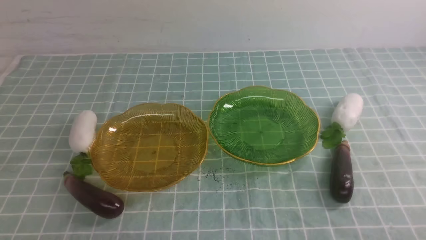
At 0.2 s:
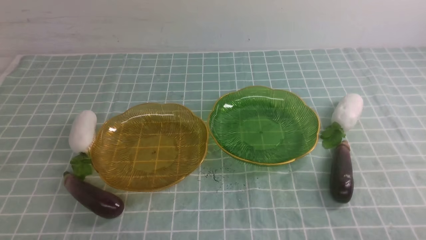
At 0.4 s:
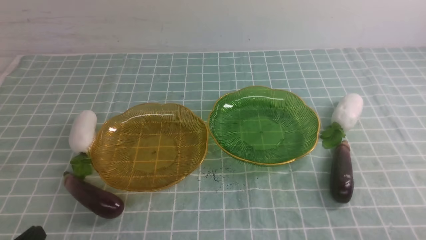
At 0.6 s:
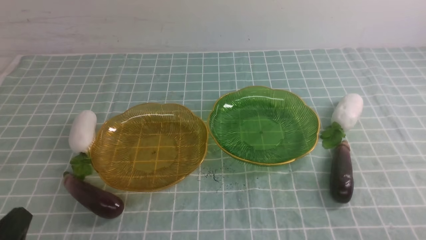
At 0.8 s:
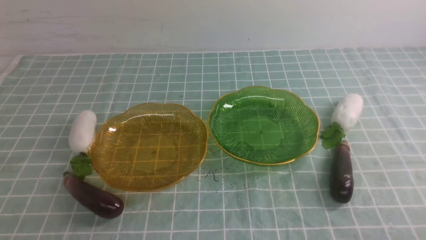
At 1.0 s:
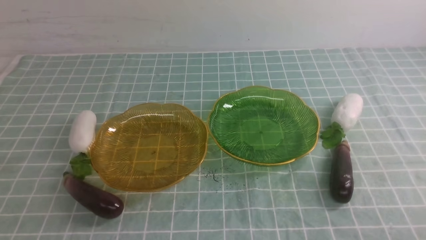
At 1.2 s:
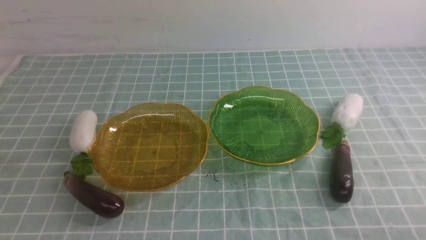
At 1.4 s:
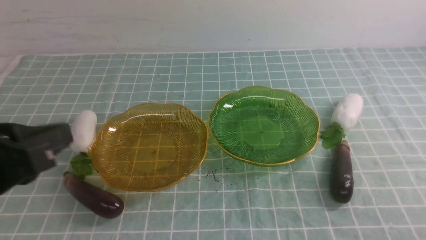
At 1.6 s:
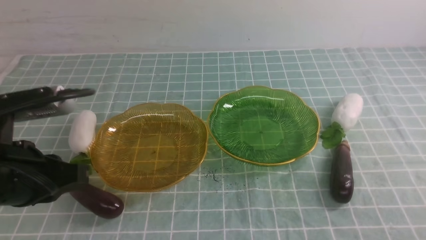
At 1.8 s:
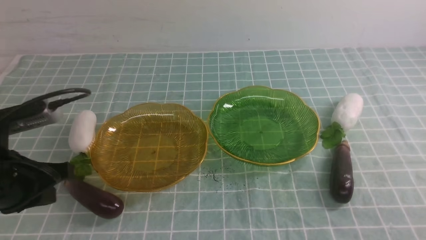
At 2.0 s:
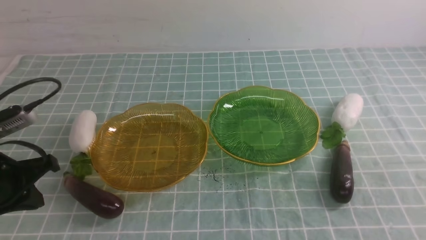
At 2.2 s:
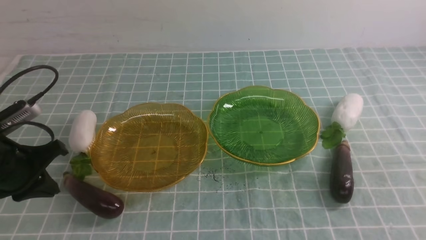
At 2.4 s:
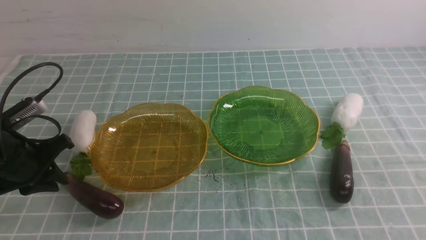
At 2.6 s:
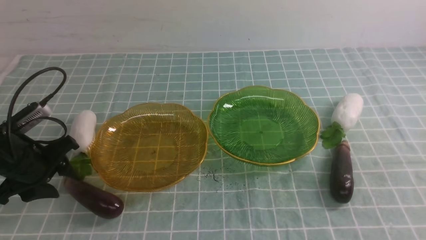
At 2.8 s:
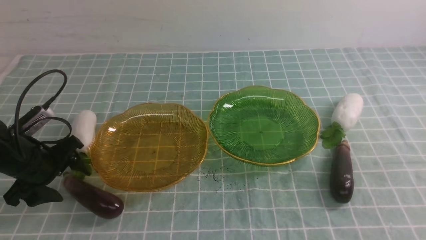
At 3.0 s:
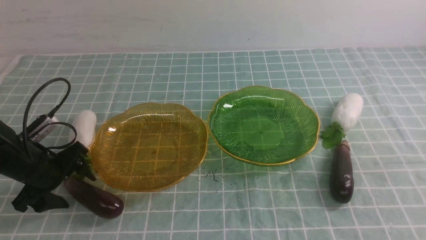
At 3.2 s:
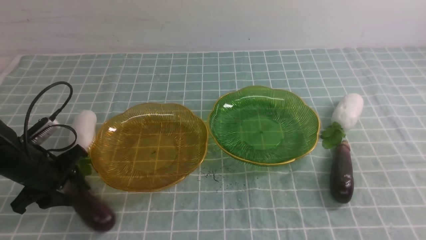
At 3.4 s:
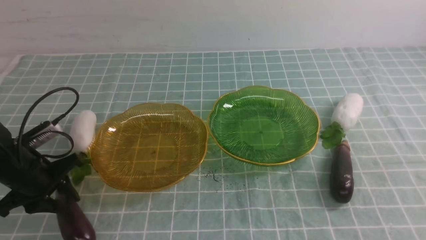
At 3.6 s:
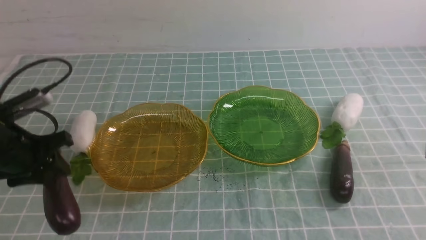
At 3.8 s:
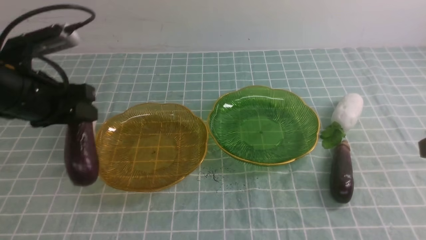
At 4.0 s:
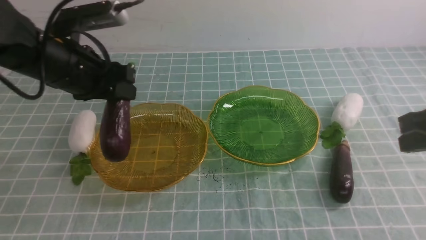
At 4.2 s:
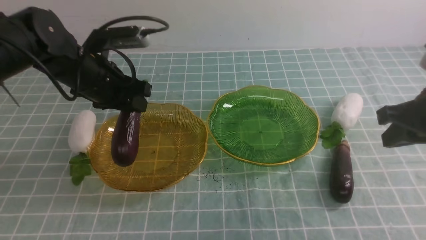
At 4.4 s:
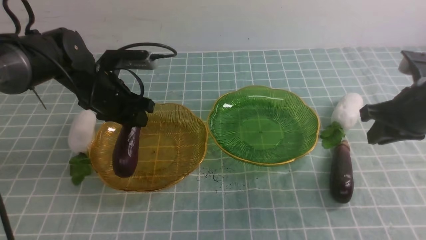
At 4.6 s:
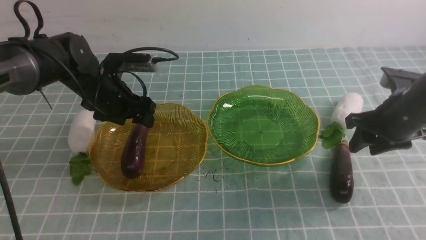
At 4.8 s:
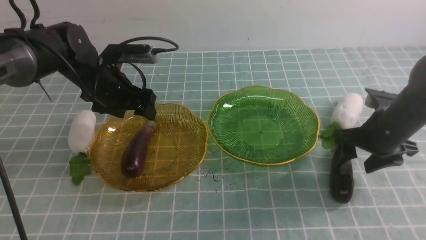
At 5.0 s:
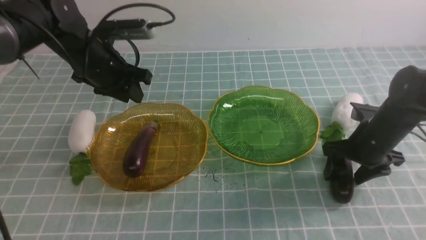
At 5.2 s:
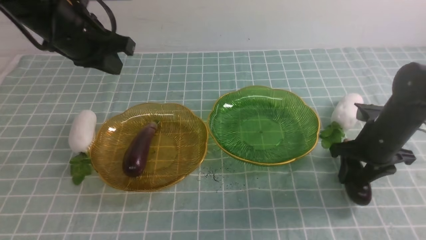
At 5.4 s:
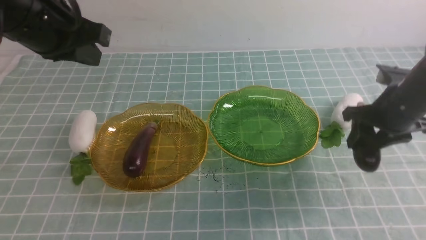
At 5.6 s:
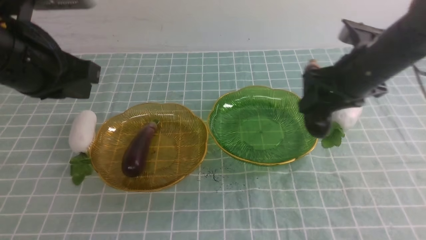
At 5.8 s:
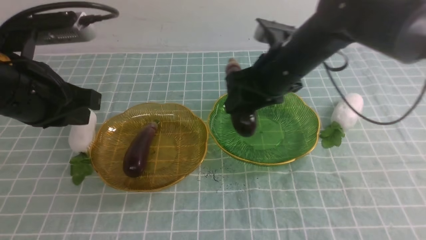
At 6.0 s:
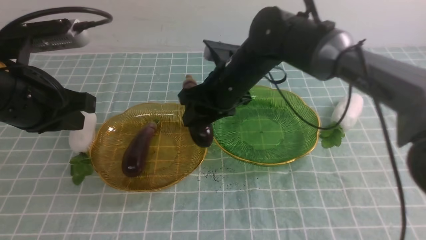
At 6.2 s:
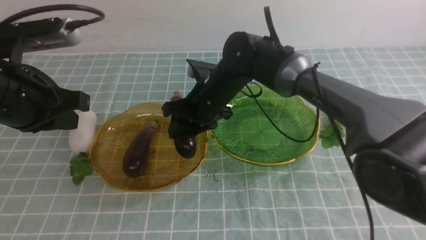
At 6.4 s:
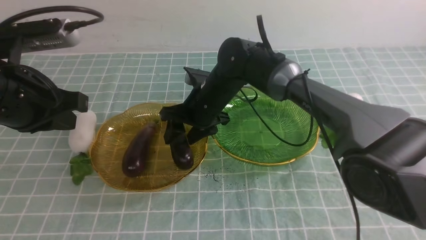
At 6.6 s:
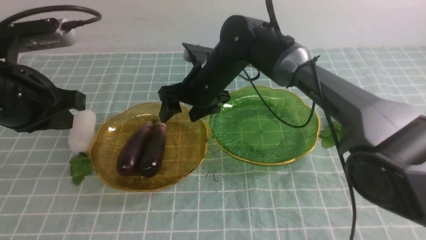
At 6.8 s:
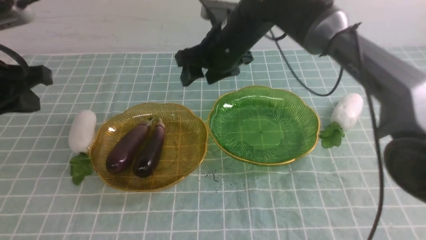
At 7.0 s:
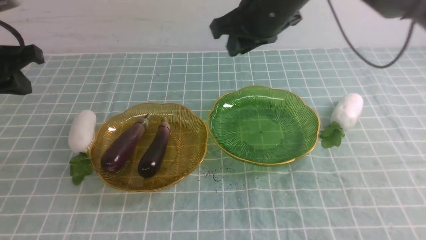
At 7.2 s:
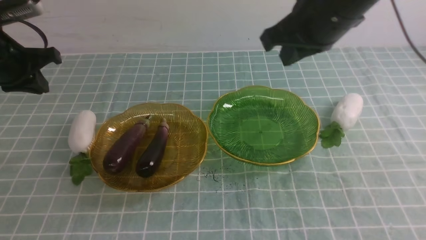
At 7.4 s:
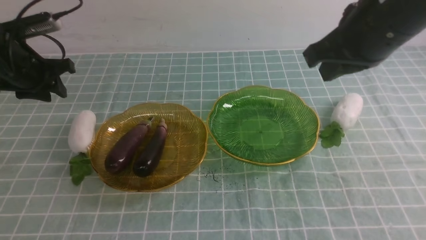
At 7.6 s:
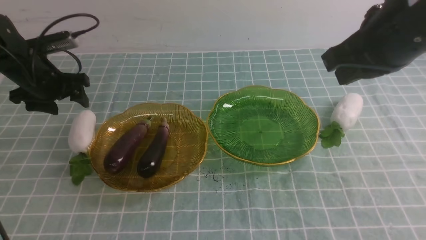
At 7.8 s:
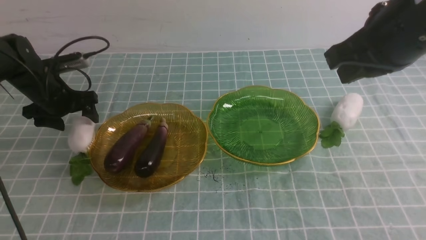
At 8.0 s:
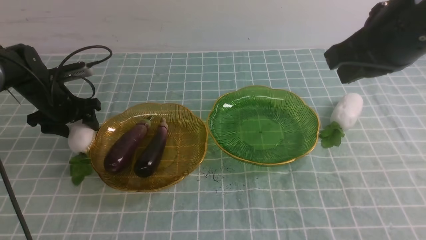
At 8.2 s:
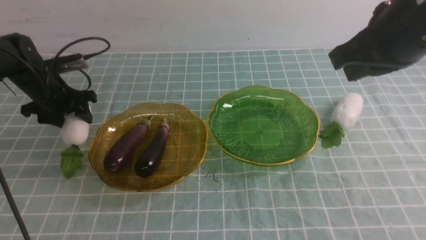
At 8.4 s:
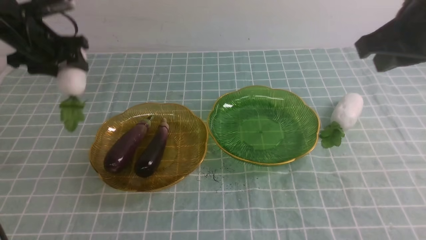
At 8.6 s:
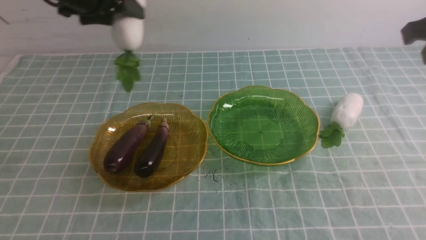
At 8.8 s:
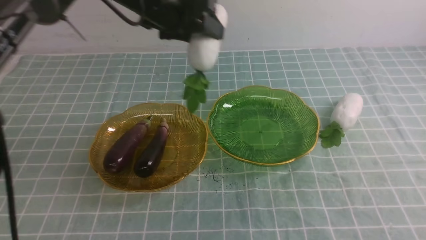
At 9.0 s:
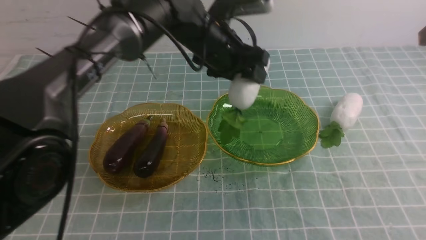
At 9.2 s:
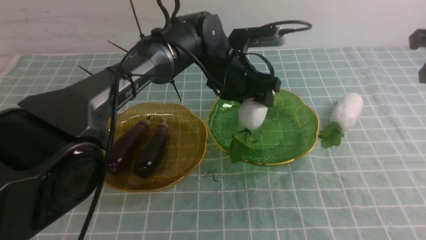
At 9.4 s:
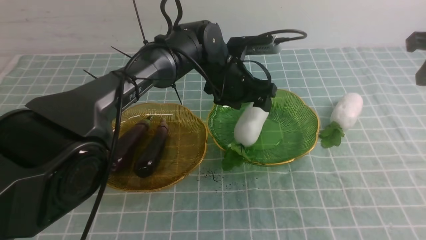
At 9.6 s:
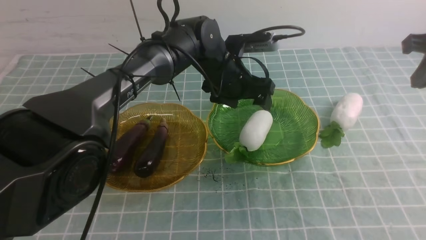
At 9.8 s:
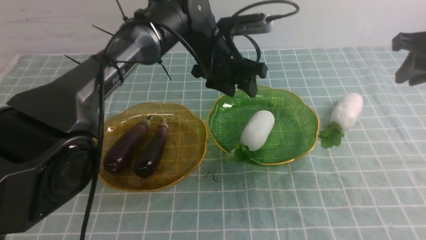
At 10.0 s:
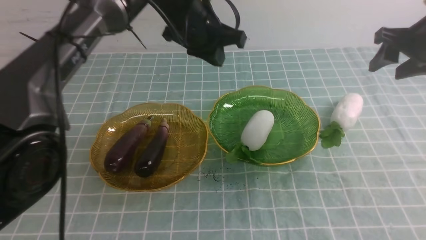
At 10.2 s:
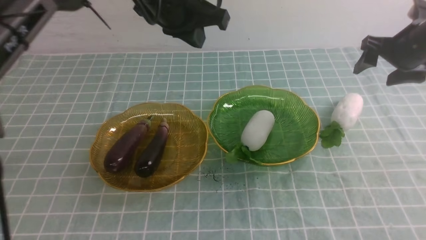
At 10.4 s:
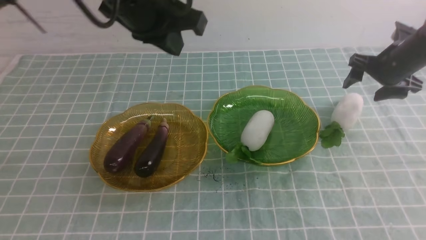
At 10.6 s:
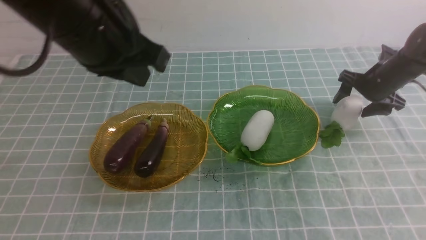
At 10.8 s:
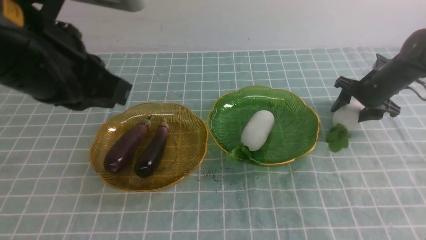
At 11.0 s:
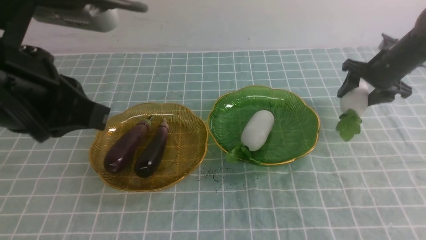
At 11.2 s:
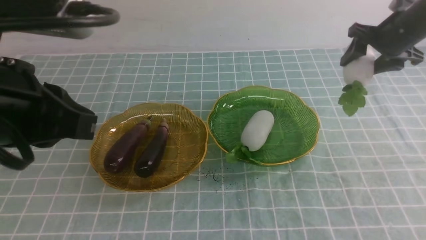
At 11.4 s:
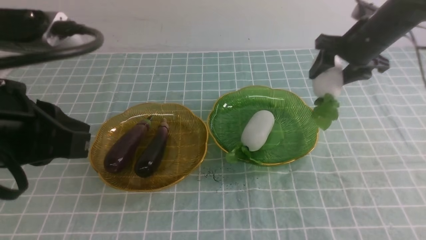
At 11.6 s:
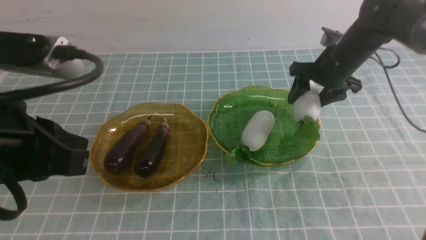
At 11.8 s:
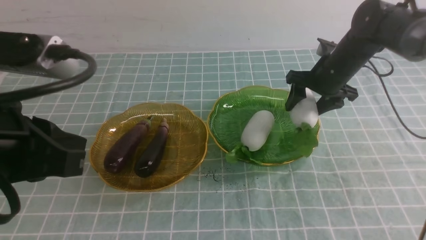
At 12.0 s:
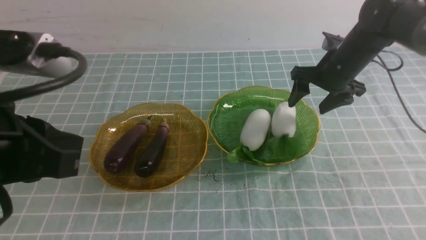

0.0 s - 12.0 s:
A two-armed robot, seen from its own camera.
Step, 0.0 s - 4.6 s: use the left arm to grab an eggplant and put it into the left plate.
Step, 4.8 s - 6.4 s: use the right arm to grab an eggplant and put it into the left plate.
Step, 6.6 s - 9.4 s: use the left arm to grab a radish and put it into the right plate.
Step, 9.6 s - 12.0 s: use the right arm to grab a radish and put it into the right plate.
0.0 s - 1.6 s: The left gripper goes about 20 cm upward and forward.
1.6 s - 3.0 s: The left gripper heads downward, forward and to the left, covering about 20 cm, and opens.
3.0 s - 4.4 s: The left gripper heads to the right, forward and upward, covering some 15 cm, while the right gripper shifts some 20 cm forward.
4.4 s - 6.0 s: The left gripper moves backward and upward, some 20 cm, and closes its fingers. The right gripper goes about 25 cm to the left.
6.0 s - 7.6 s: The right gripper is displaced to the right, upward and backward by about 25 cm, and closes. Meanwhile the left gripper is displaced forward, downward and to the left by approximately 25 cm, and opens its fingers.
7.6 s - 9.0 s: The left gripper is displaced to the right by approximately 30 cm. The right gripper is displaced to the right by roughly 15 cm.
9.0 s - 10.4 s: The right gripper moves downward and forward, roughly 20 cm, and opens up. Meanwhile the left gripper goes roughly 20 cm upward, backward and to the left, and closes its fingers.
10.4 s - 12.0 s: The right gripper travels to the left and upward by some 10 cm. The left gripper moves backward and to the left, about 20 cm.

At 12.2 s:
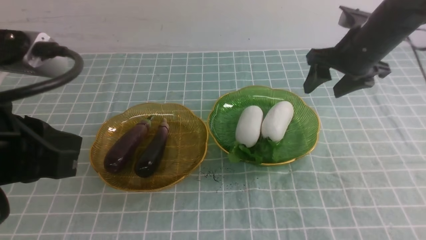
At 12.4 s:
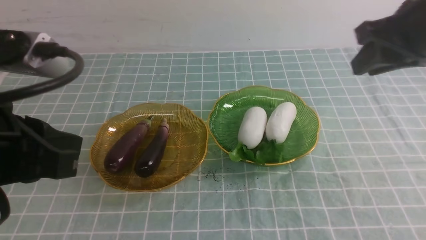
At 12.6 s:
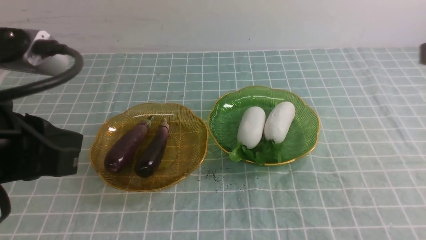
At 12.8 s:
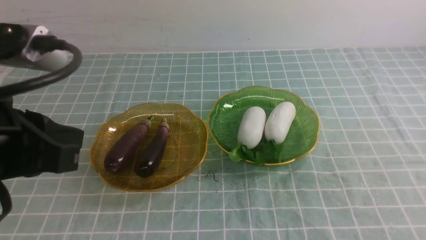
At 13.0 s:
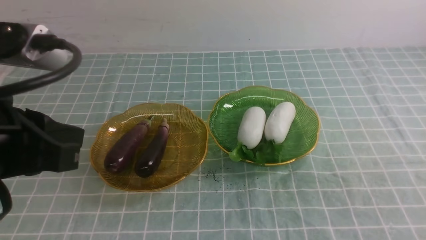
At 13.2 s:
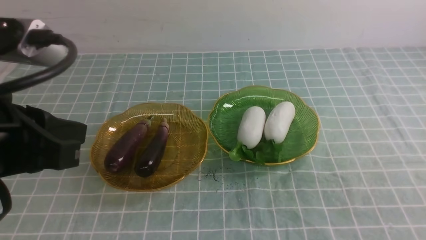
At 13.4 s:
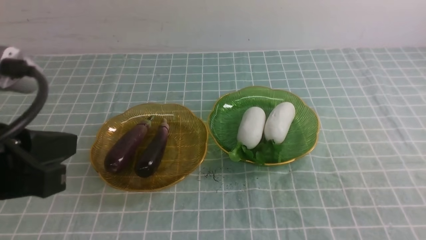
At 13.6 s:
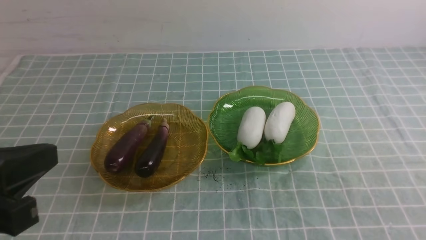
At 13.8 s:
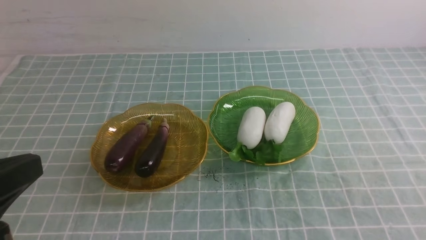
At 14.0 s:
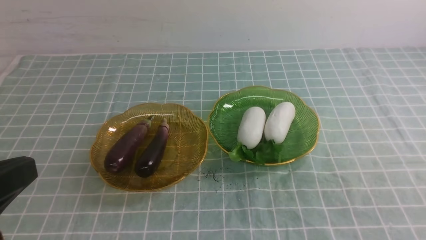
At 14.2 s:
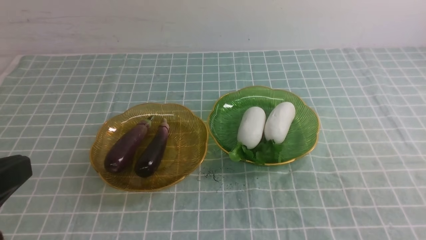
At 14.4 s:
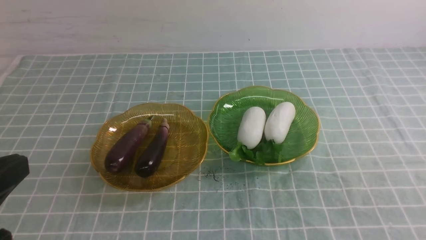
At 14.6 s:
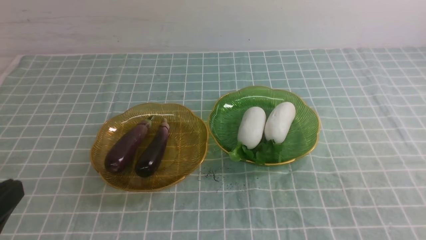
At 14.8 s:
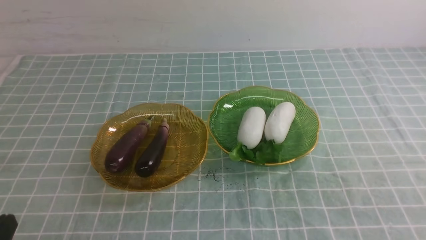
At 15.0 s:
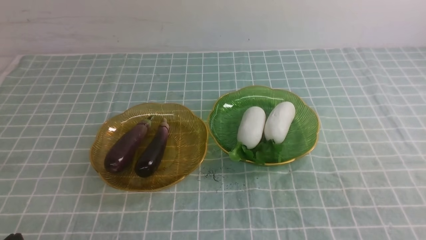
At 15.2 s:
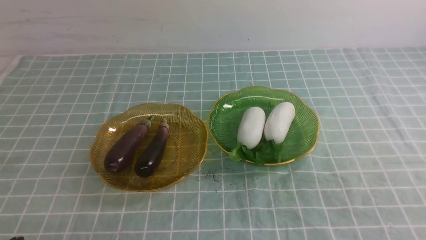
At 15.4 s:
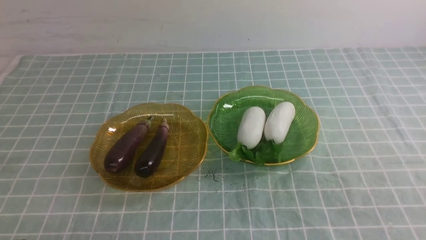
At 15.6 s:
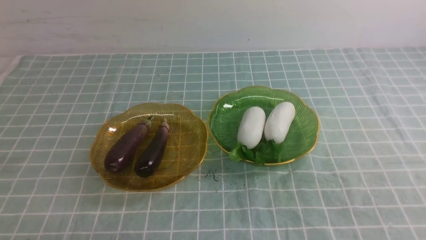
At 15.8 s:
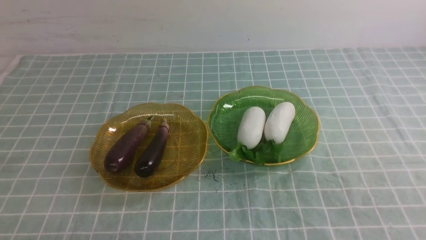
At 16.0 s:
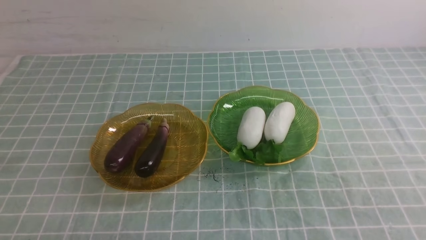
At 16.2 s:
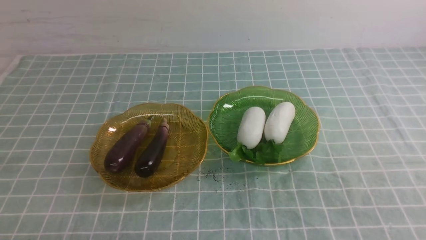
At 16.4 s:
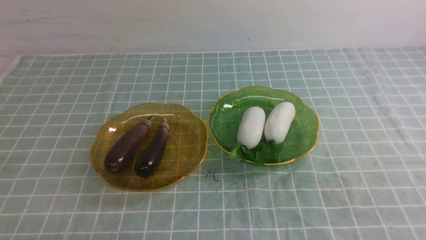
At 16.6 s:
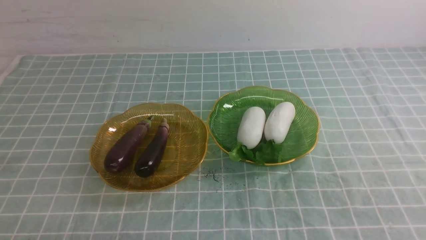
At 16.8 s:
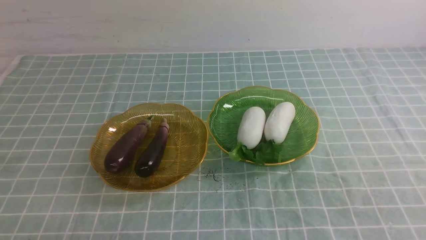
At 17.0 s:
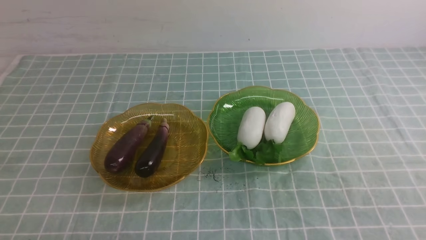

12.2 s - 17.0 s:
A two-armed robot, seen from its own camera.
12.2 s - 13.8 s: The right gripper heads backward, covering about 35 cm, and closes its fingers. The left gripper travels backward by about 5 cm.
13.8 s - 15.4 s: The left gripper travels downward by some 20 cm.
15.4 s - 17.0 s: Neither gripper changes place.
